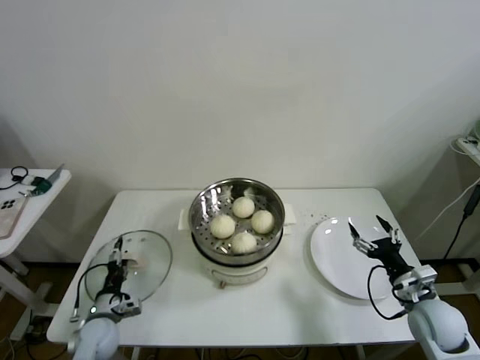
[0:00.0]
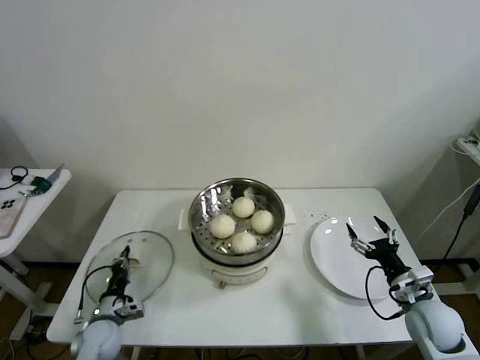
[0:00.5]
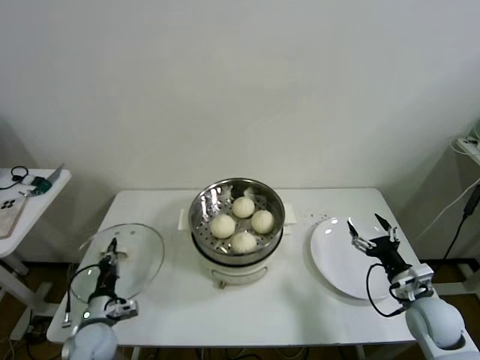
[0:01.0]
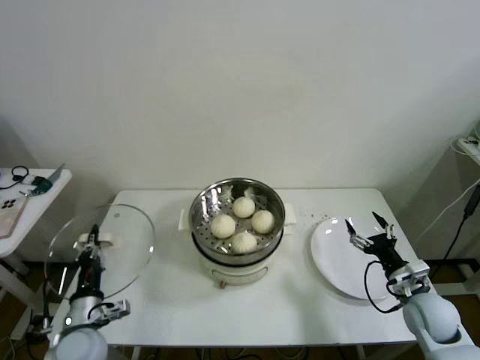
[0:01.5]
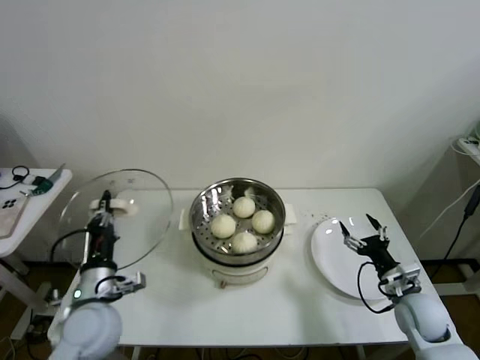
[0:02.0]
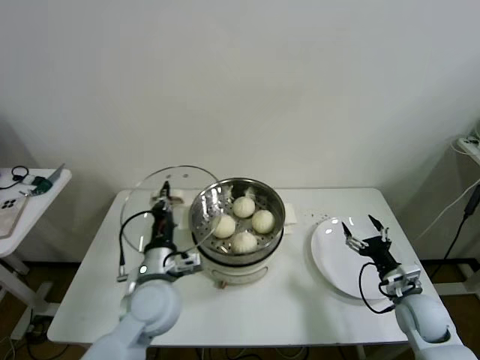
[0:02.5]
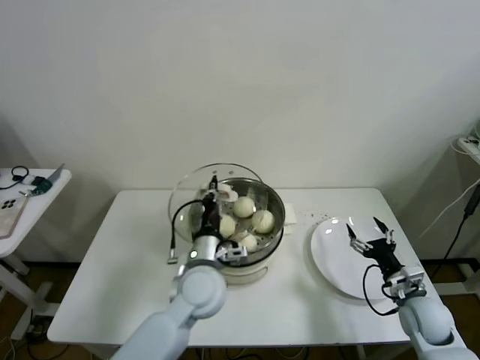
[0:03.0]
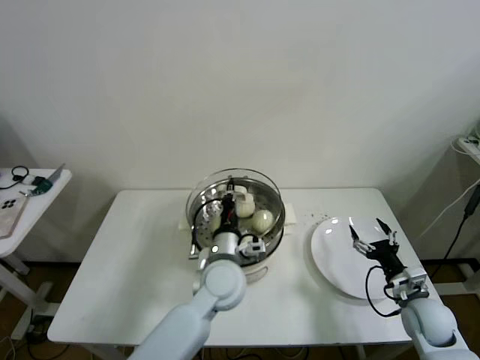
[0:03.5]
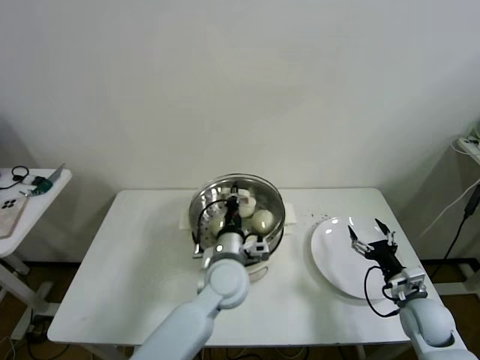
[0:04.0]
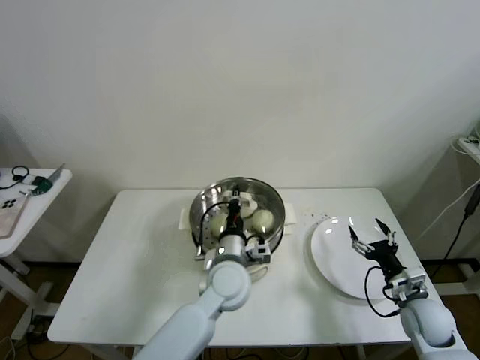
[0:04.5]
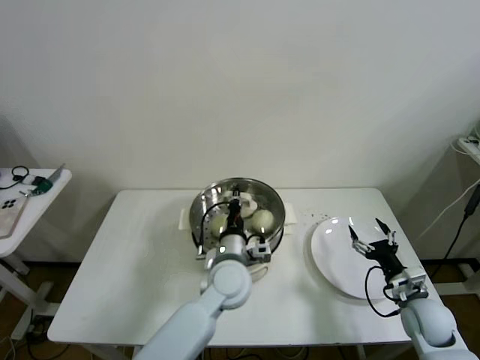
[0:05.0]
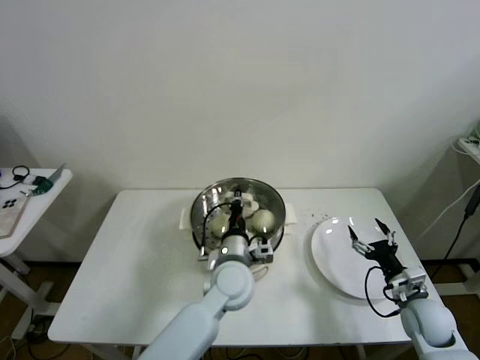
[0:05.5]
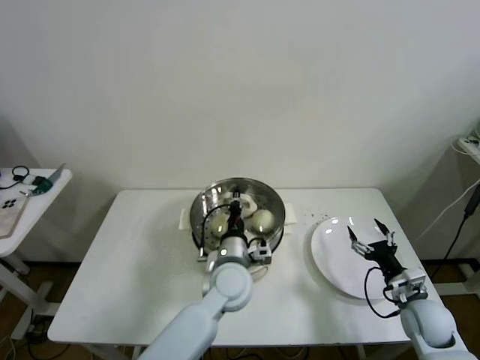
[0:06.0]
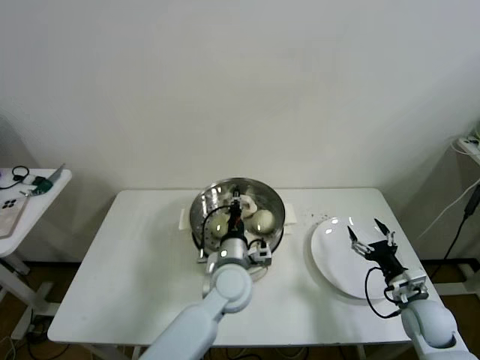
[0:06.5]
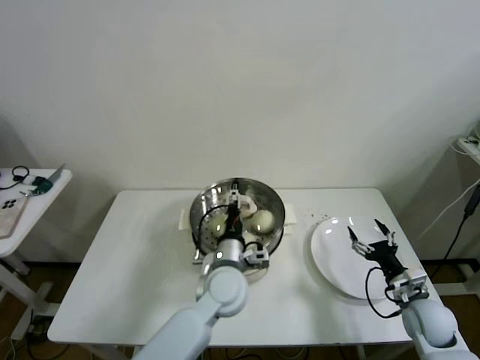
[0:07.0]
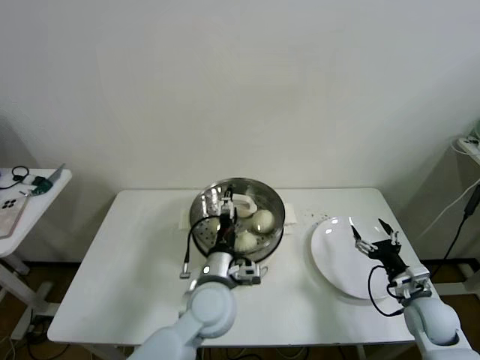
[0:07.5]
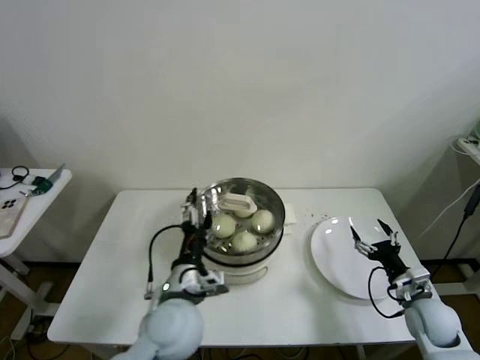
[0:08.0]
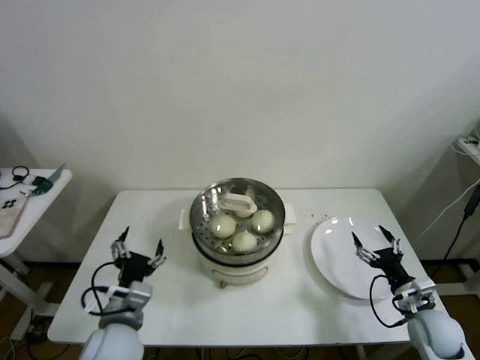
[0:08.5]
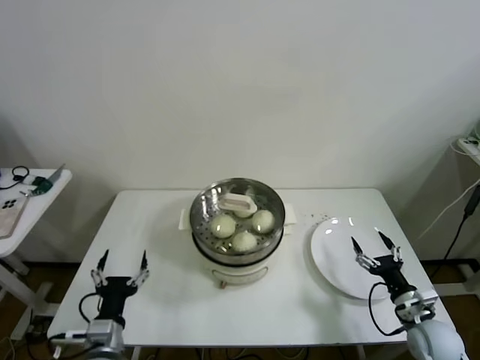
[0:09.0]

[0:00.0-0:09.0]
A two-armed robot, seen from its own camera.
Task of the whole recording: take steamed baozi put them in steamer then cover it.
Step, 0:01.0 to 0:07.0: Place the pot lid on the steamer with left gripper.
0:00.0 to 0:02.0: The left gripper travels upward by roughly 20 cm, and closes its fingers.
0:02.0 to 0:04.5: The left gripper heads to the right, covering roughly 25 cm.
0:04.5 to 0:07.0: The left gripper opens its fingers.
0:07.0 to 0:09.0: The left gripper shifts approximately 30 cm to the left and backward.
